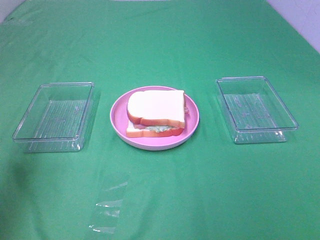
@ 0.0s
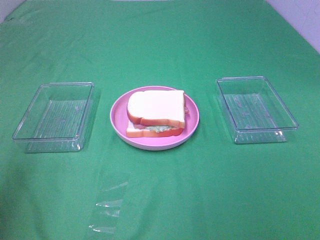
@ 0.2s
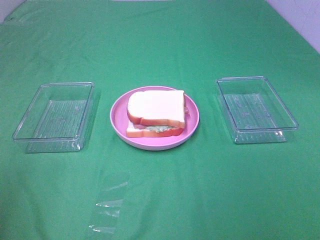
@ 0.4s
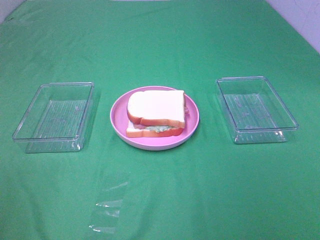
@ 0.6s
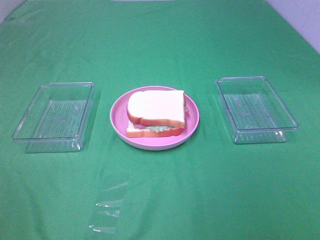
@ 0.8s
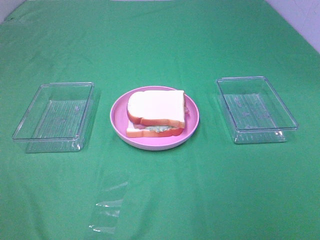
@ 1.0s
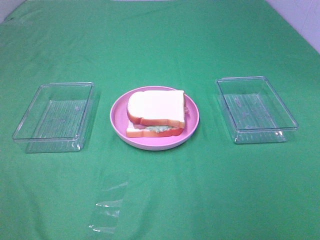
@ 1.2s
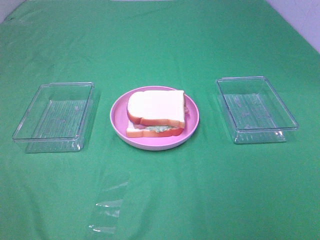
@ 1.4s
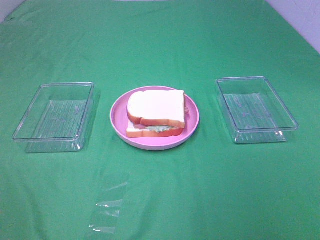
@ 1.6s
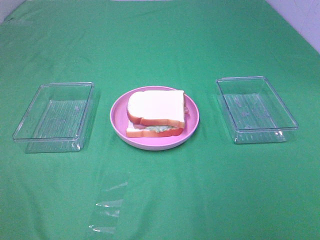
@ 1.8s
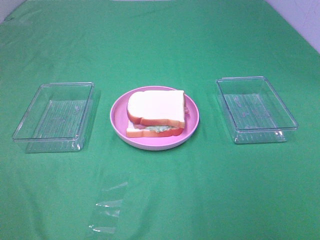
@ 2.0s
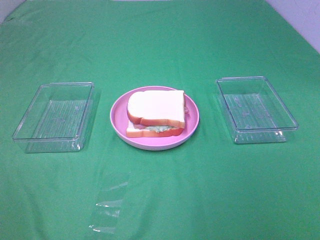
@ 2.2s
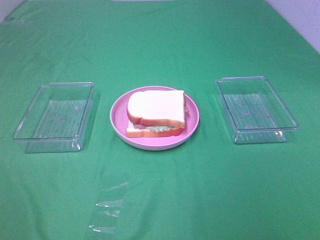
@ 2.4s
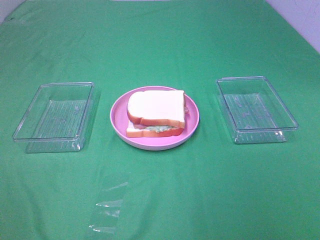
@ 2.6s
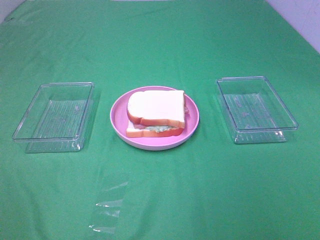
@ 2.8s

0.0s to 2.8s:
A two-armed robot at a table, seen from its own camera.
Task of the whole recording: Make sandwiches.
0.0s to 1.4s: The left gripper shifts about 25 cm backward.
1.4s to 2.8s: Neither gripper changes place.

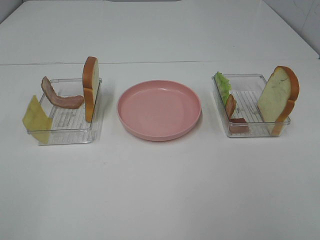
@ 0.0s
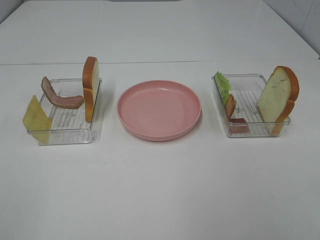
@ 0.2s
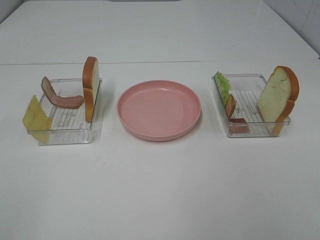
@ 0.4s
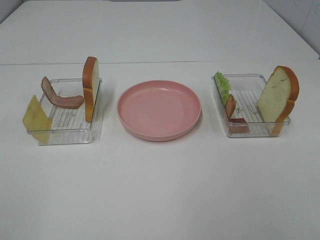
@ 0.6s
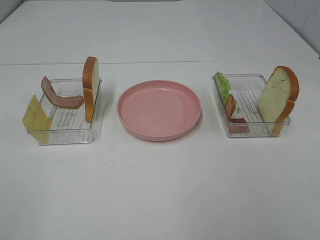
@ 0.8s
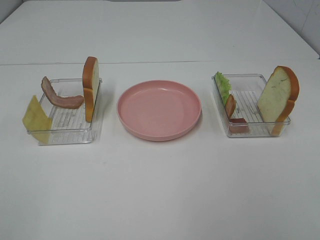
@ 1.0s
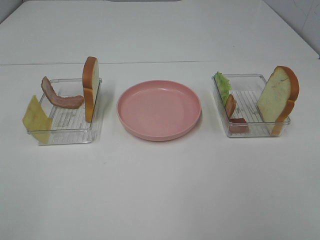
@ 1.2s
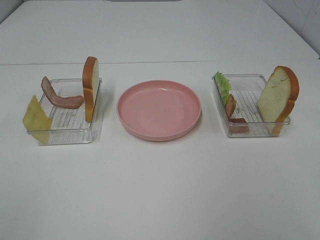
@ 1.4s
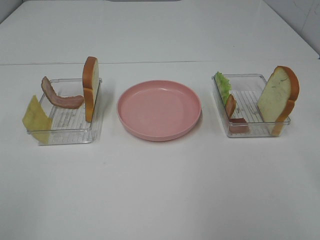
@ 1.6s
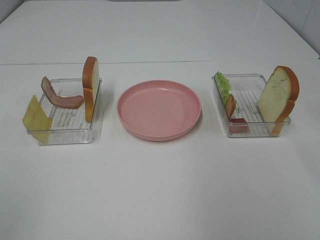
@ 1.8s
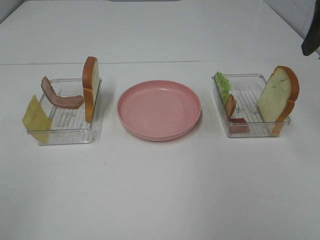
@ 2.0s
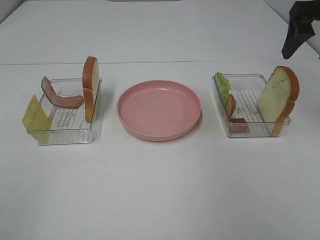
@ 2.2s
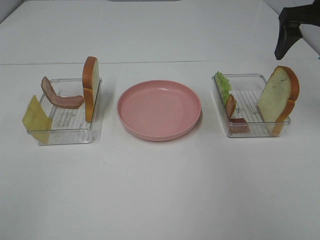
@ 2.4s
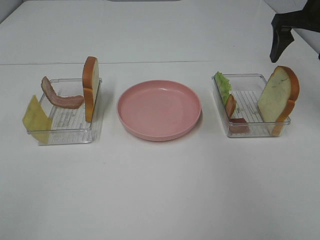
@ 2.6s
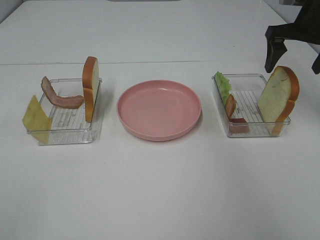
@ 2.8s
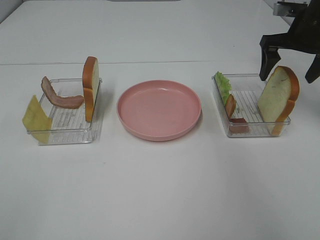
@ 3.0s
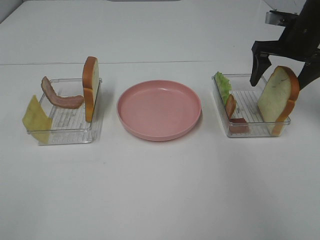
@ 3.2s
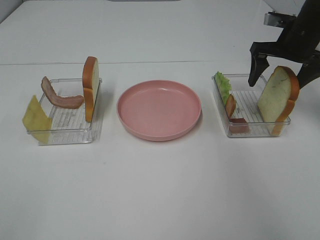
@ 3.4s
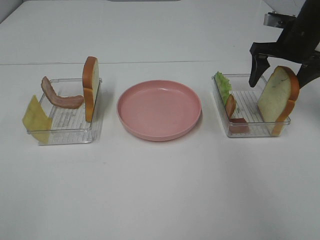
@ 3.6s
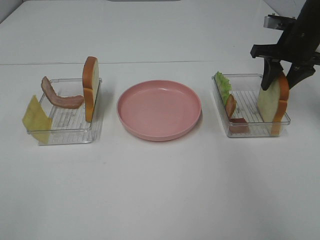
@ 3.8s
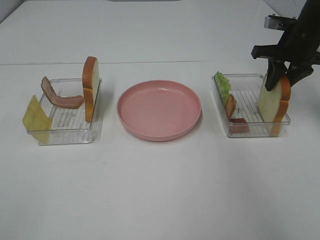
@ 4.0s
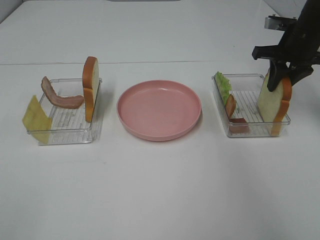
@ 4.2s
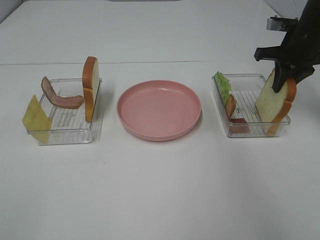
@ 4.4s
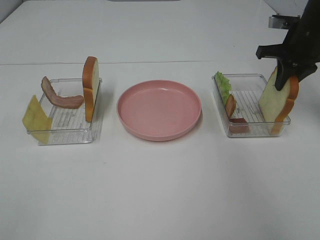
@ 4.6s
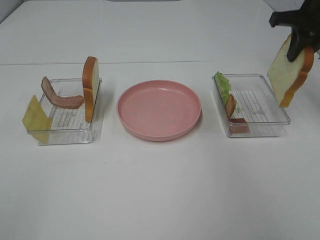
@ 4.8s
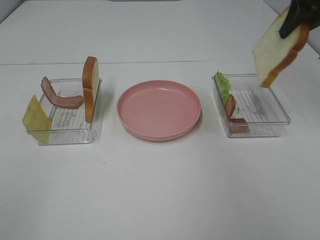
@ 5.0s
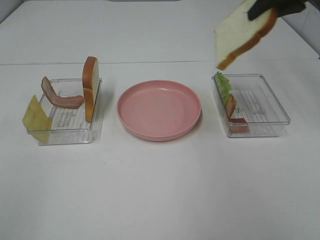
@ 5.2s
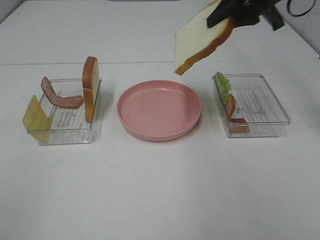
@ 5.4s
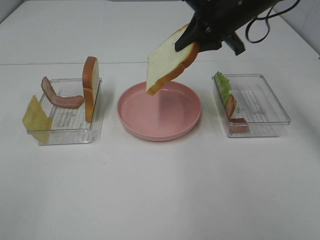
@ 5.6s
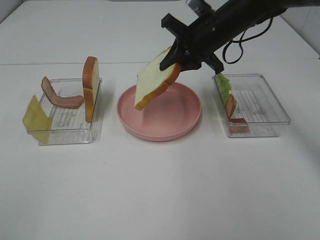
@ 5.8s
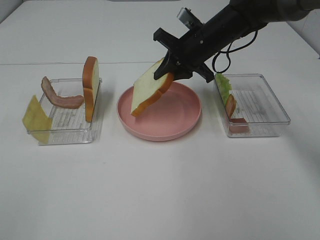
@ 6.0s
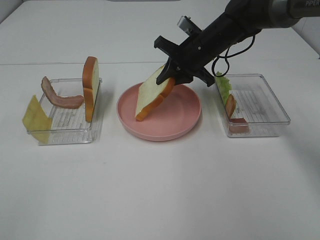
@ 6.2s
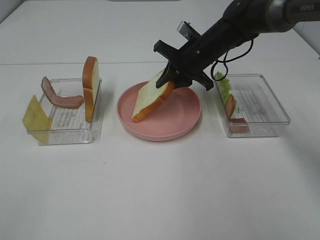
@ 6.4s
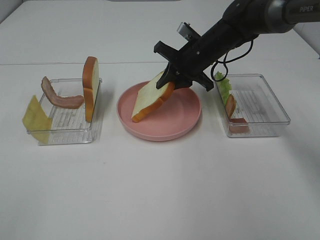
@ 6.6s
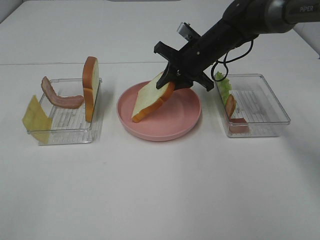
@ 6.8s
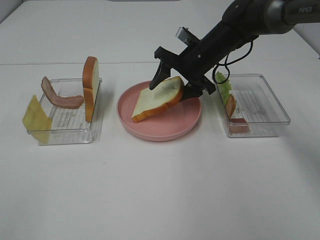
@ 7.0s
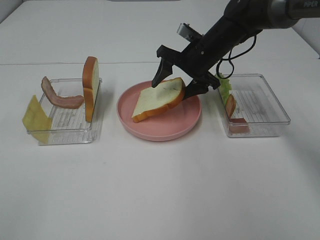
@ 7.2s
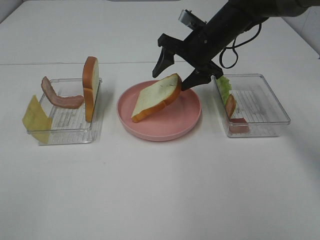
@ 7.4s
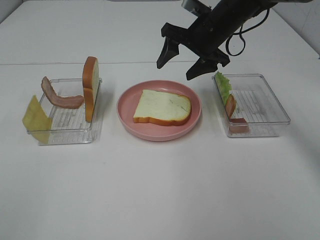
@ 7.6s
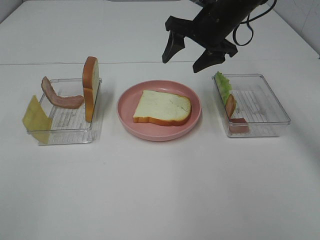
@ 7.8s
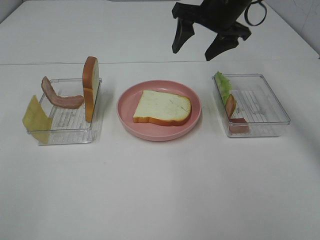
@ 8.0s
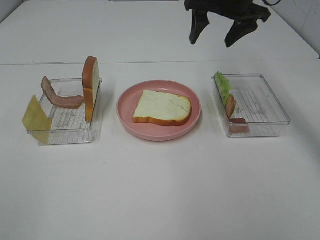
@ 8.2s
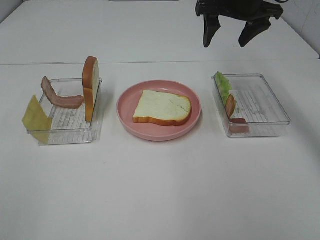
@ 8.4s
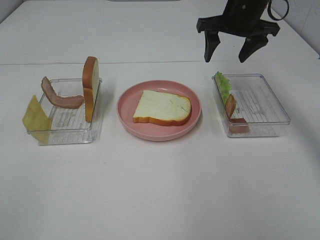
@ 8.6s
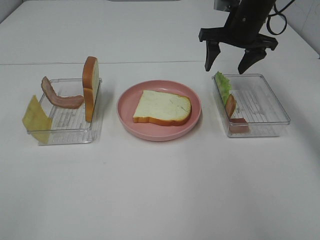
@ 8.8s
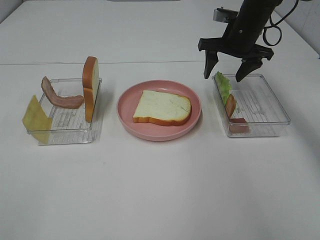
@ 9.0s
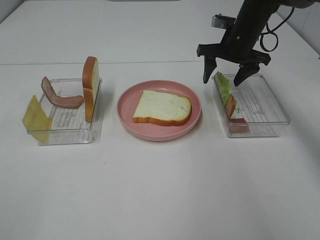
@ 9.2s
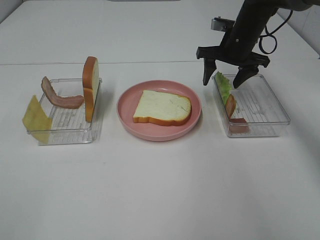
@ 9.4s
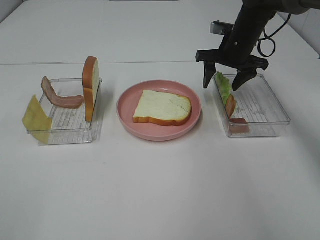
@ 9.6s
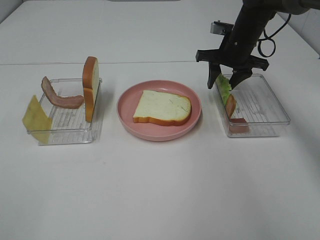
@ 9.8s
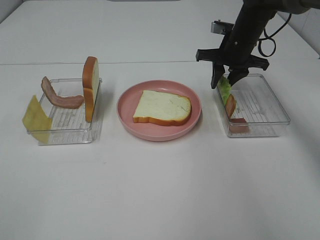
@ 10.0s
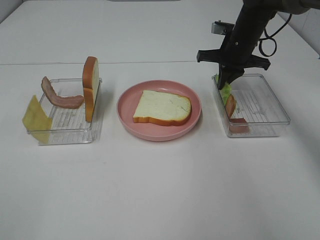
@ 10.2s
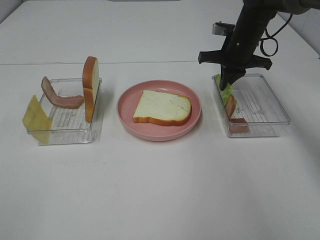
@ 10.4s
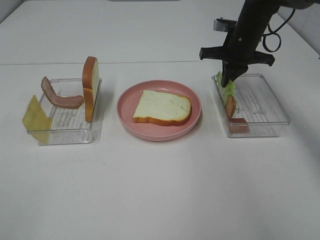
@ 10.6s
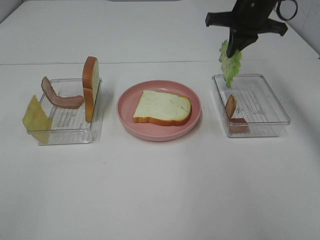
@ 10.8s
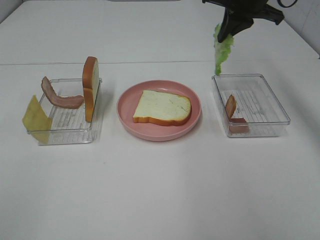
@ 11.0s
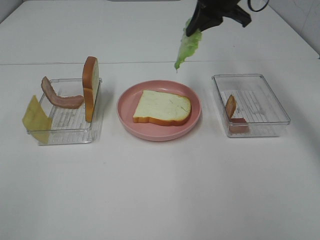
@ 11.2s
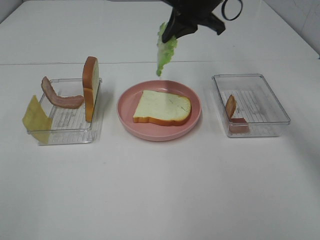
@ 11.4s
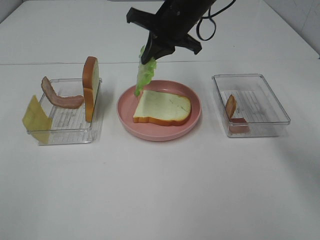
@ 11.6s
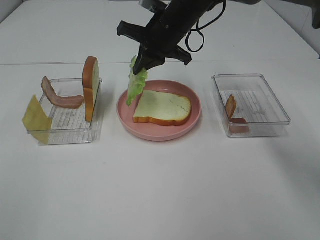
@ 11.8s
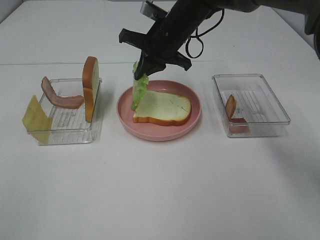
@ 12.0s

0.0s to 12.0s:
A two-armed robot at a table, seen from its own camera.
Task of the whole recording: Make sandwiches.
Step, 0.0s to 4.2s: Right hand:grab the bread slice.
Step, 4.4s to 7.8s: Right hand:place the bread slice on the plate.
Step, 8.0s to 10.2s: Right hand:grab the lettuce slice.
1.6s to 3.0s: The right gripper travels forward and downward by some 30 cm.
3.0s to 4.4s: The right gripper closes.
4.4s to 6.0s: The right gripper travels to the left by roughly 20 cm.
6.0s to 7.6s: The right gripper opens its fingers.
7.6s to 9.0s: The right gripper is displaced to the right by roughly 5 cm, and goes upward and returns, approximately 10 cm each way.
9.0s to 10.4s: The right gripper closes.
10.4s to 12.0s: The right gripper travels to the left by roughly 15 cm.

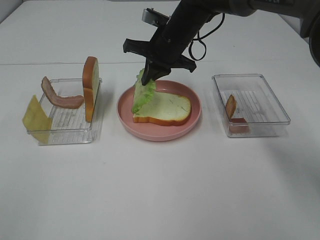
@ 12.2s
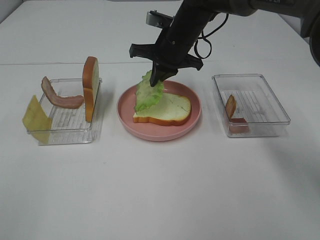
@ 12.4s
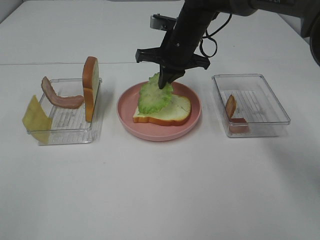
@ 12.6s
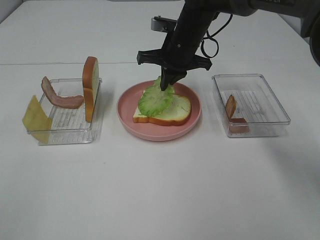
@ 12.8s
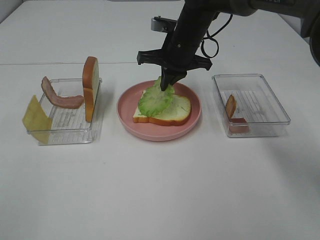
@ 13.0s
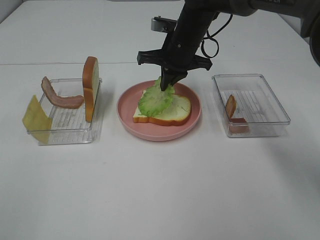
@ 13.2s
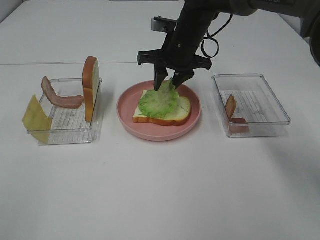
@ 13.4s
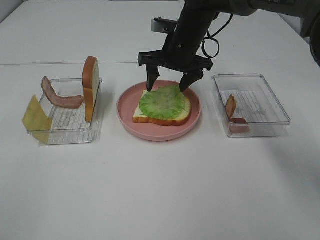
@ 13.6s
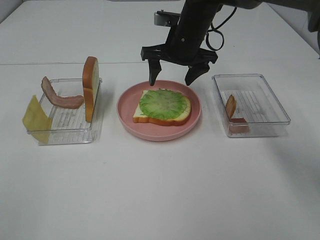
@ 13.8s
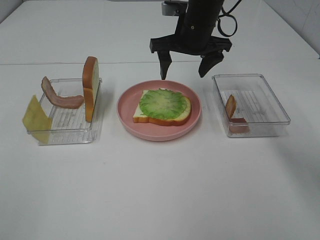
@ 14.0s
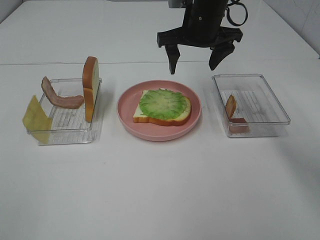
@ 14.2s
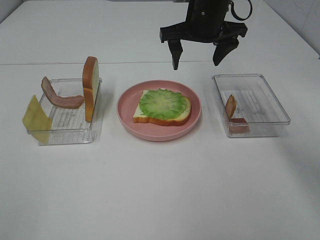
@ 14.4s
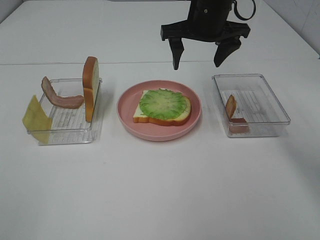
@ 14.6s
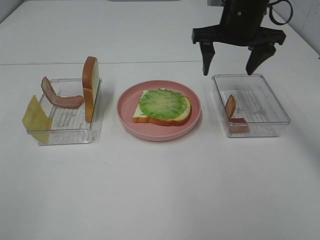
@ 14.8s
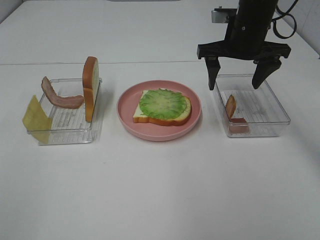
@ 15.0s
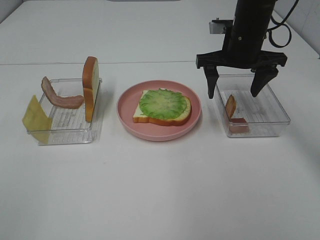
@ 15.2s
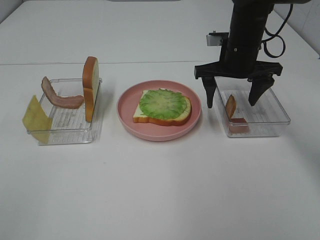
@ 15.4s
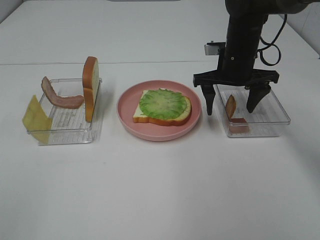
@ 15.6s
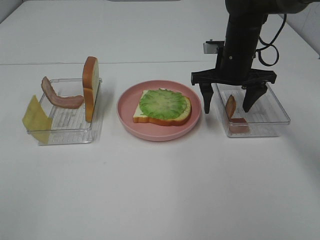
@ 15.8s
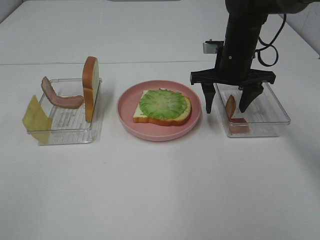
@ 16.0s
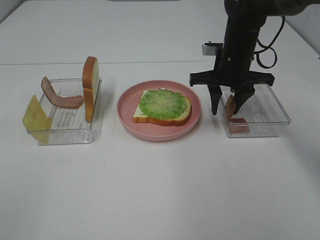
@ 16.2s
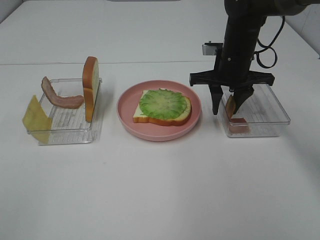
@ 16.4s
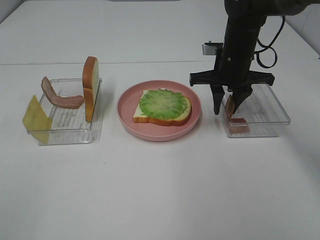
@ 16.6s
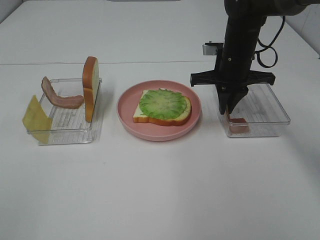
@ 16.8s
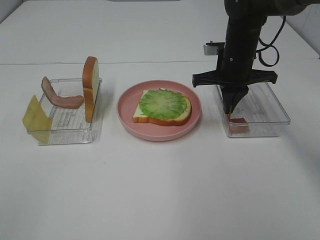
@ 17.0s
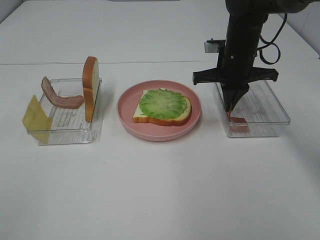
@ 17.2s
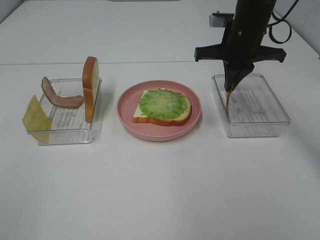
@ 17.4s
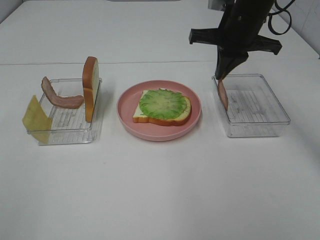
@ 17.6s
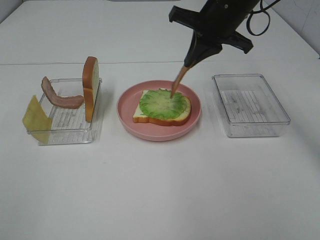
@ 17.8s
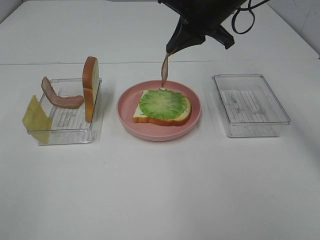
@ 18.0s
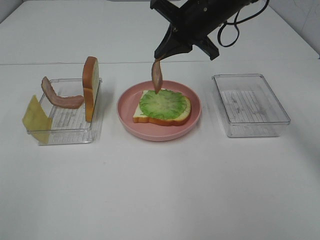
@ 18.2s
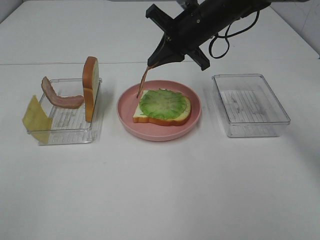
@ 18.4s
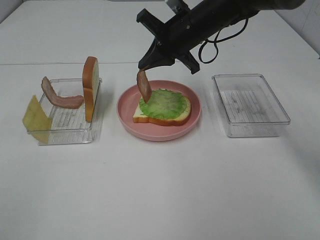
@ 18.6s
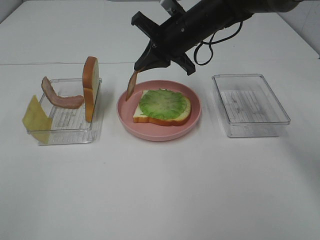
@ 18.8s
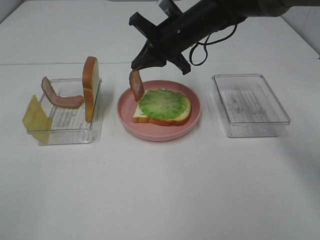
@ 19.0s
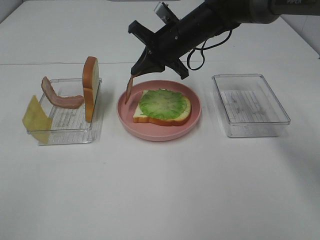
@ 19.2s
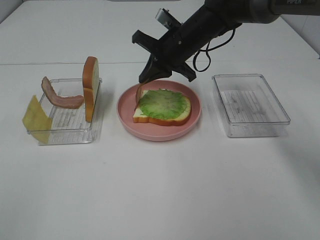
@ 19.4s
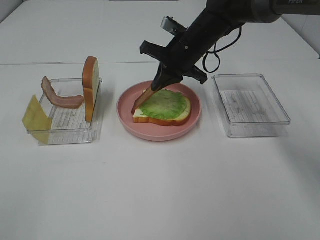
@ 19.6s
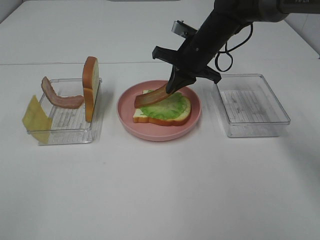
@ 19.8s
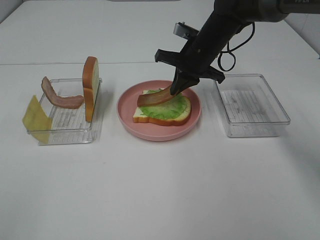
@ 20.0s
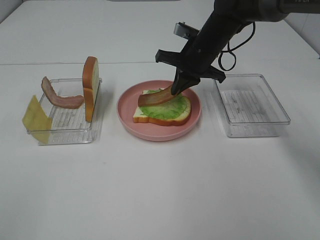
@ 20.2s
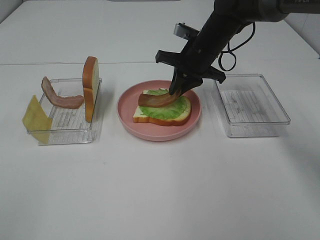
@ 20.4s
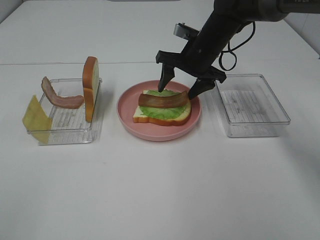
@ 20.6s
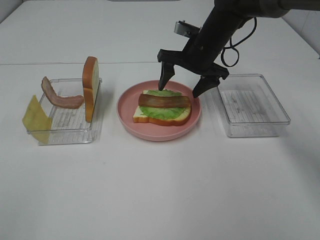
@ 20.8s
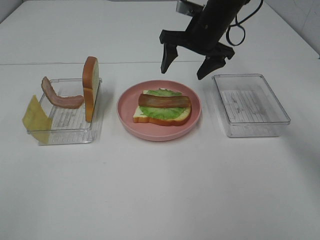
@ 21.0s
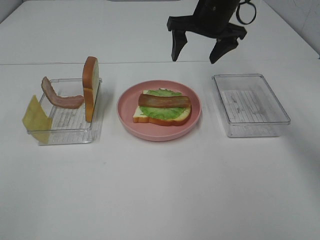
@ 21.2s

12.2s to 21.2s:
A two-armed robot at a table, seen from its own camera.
Task of the whole recording: Make sandwiches.
Step, 14.0s to 17.2s: Right hand:grab the bacon.
Step, 17.4s to 21.0s: Right hand:place bacon on lettuce slice.
12.2s to 13.8s: The right gripper opens up.
13.8s to 15.2s: The right gripper is displaced to the right by roughly 10 cm.
15.2s to 16.6s: The right gripper closes up.
16.6s to 18.2s: The right gripper heads upward and to the left, covering roughly 10 cm.
18.2s to 19.8s: The right gripper moves downward, some 5 cm.
19.8s to 21.2s: The right gripper heads upward, covering approximately 10 cm, and opens up.
